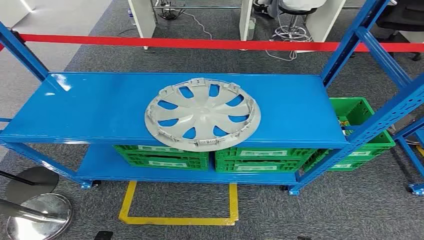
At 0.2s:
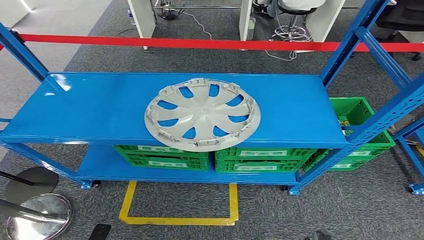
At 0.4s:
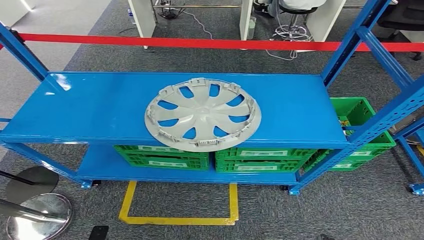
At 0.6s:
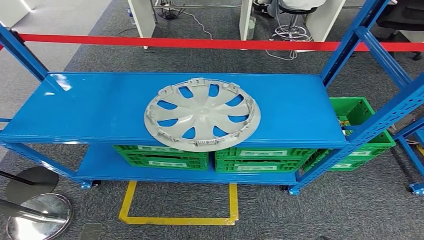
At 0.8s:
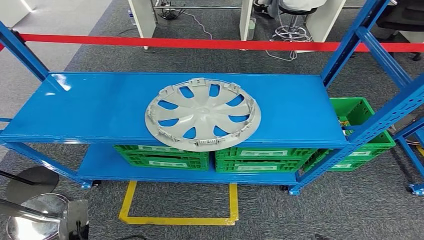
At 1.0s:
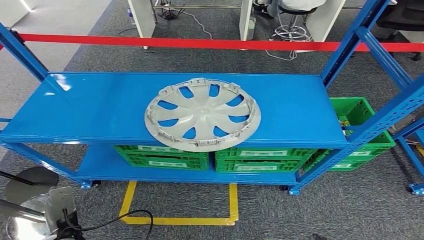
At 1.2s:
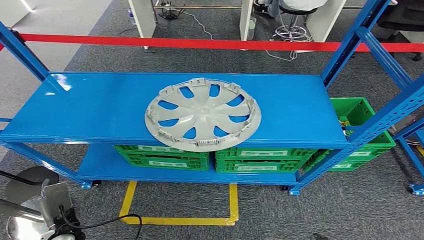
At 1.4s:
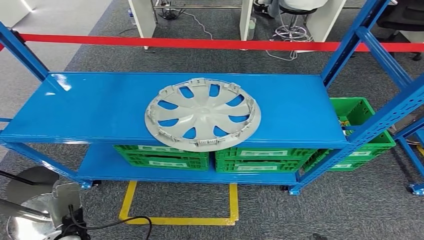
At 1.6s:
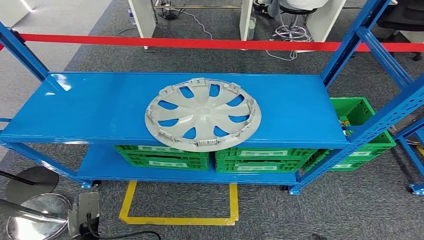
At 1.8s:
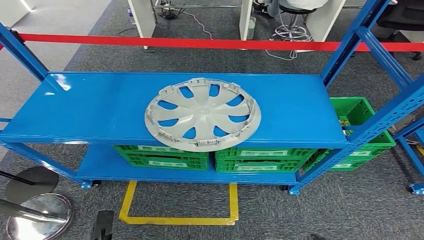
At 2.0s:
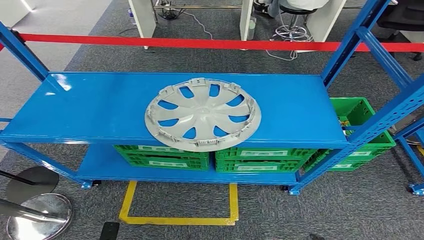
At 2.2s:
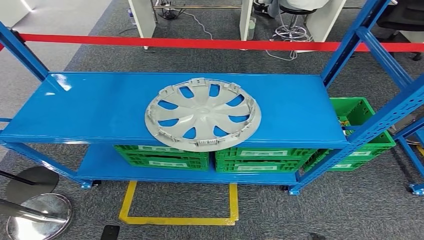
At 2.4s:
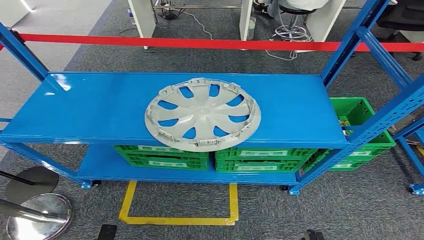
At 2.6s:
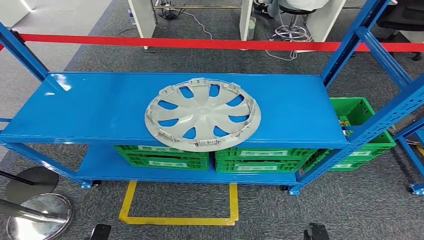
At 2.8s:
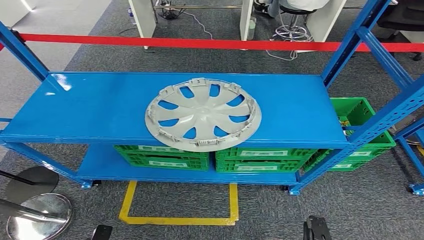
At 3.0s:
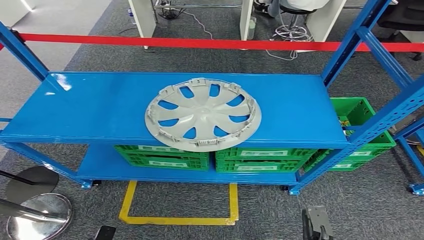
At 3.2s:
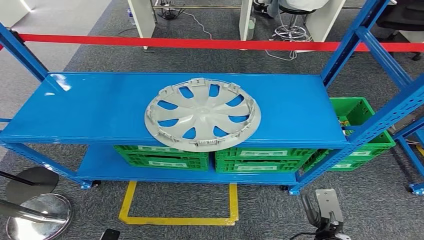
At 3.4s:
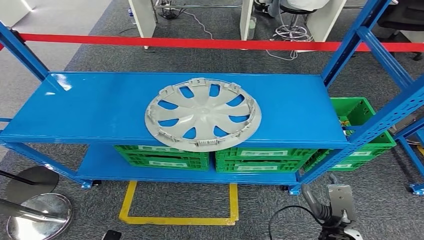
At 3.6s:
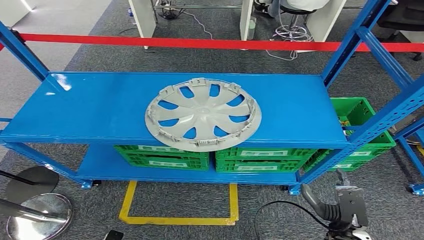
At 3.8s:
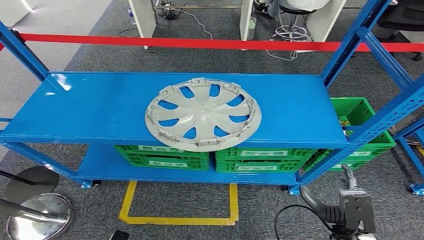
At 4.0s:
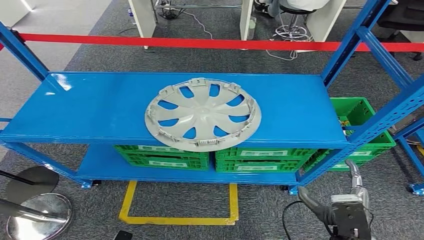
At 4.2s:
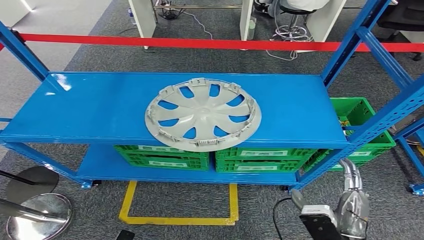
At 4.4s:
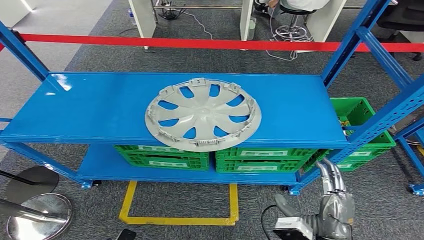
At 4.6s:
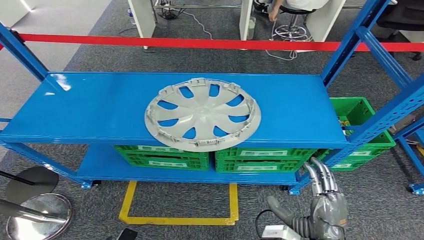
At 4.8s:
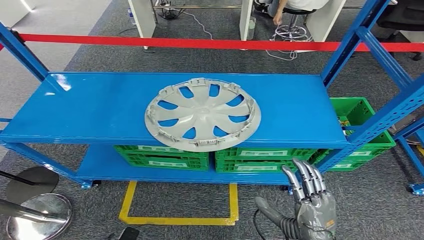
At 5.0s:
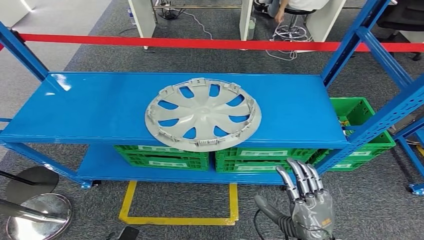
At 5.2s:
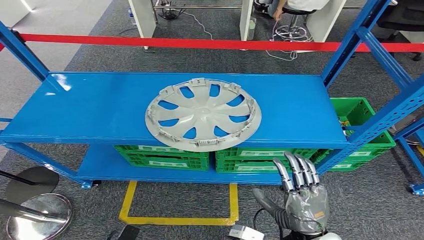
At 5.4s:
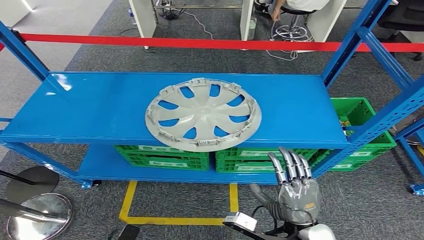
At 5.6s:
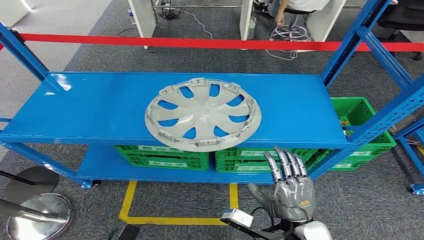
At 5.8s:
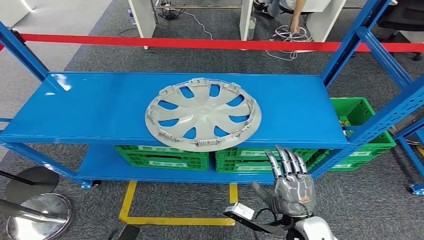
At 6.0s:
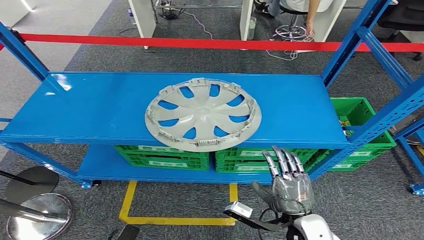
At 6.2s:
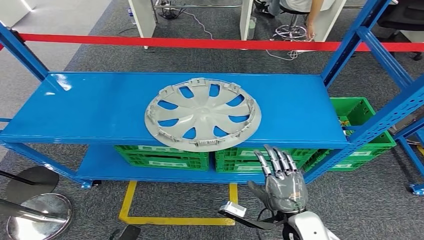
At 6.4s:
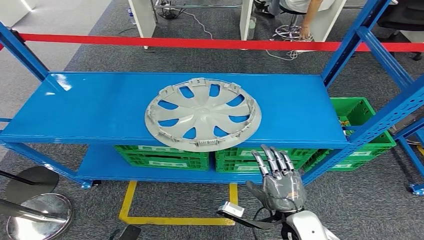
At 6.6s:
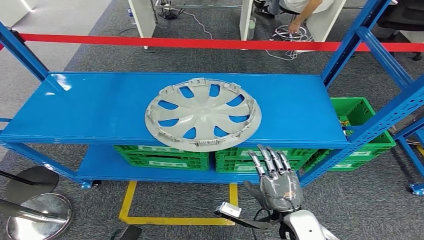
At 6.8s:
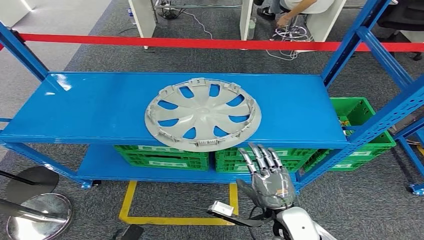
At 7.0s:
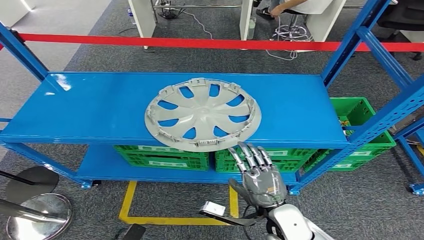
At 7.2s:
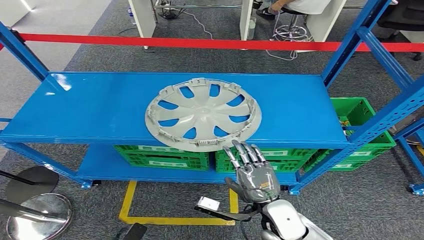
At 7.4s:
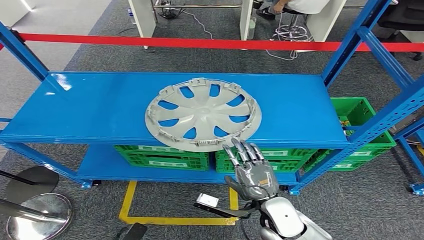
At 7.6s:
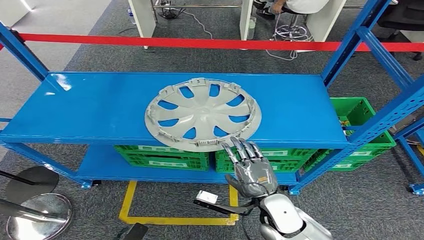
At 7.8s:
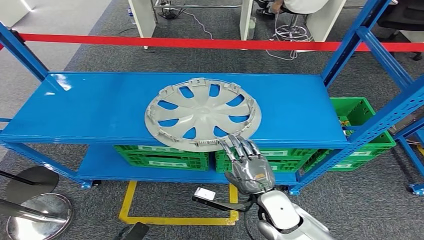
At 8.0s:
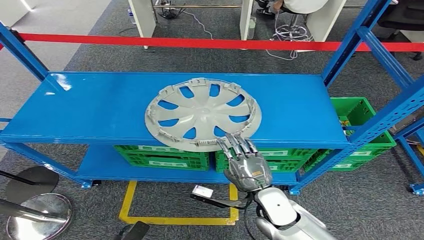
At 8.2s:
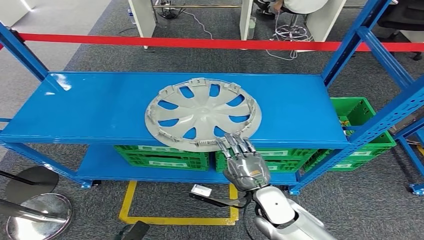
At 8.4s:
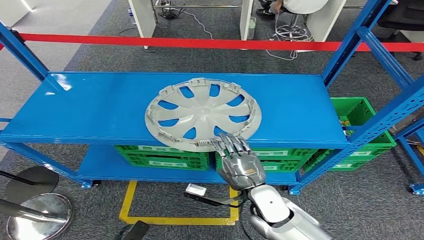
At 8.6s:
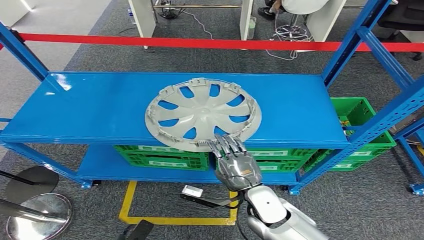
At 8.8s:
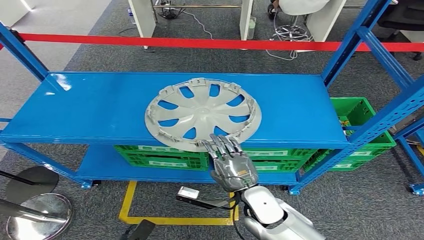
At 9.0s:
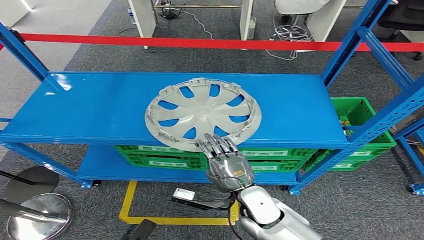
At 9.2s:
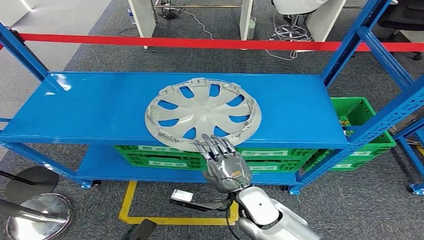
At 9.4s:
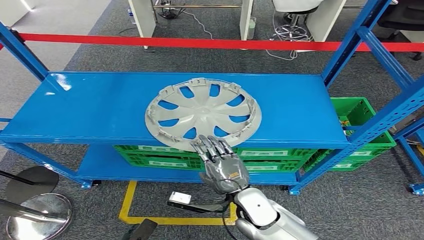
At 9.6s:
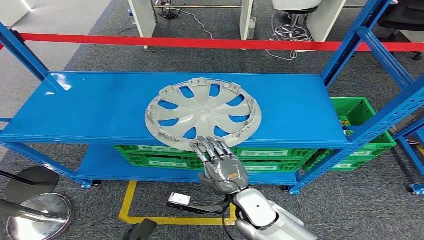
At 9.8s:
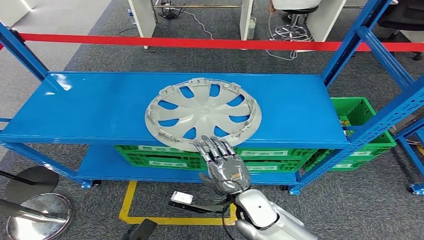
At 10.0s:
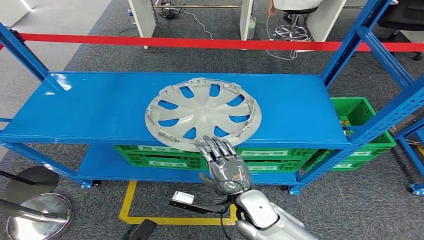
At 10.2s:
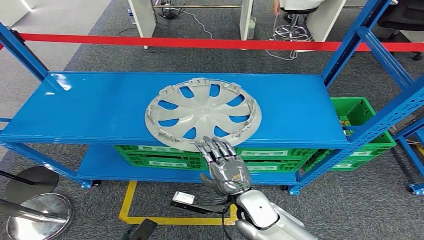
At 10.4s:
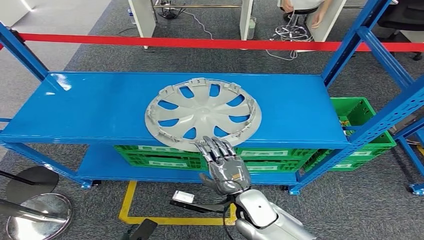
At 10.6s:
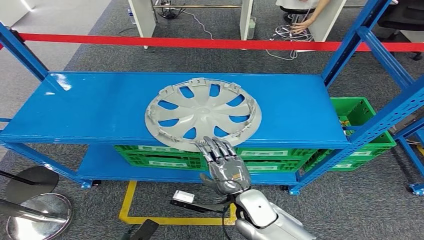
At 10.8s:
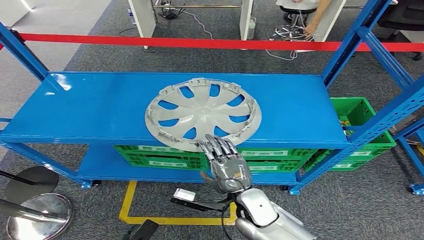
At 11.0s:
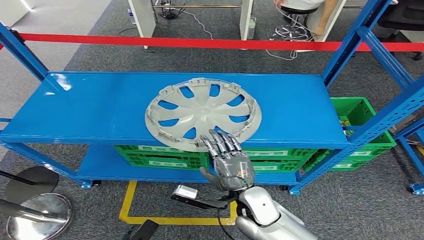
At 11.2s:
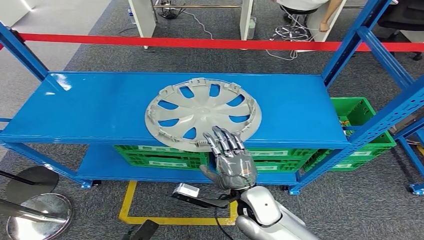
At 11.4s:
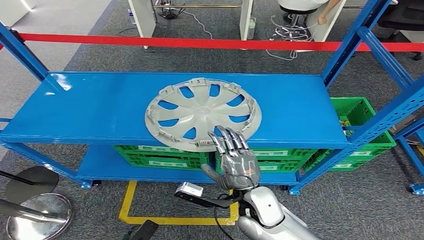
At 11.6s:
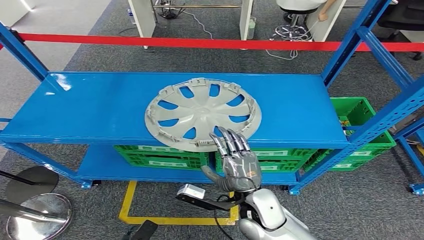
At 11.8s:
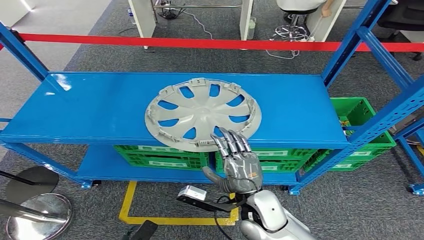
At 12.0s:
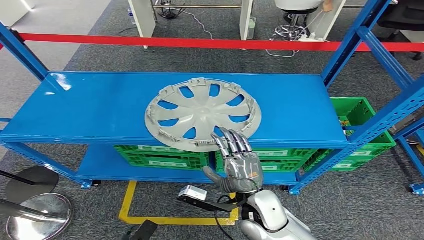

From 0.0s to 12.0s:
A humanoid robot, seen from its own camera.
From 1.6s to 3.0s: The right hand shifts about 5 cm forward, while the left hand is displaced backward by about 10 cm.
From 3.0s to 4.4s: The right hand goes approximately 20 cm upward.
From 4.4s to 6.0s: The right hand moves forward, about 5 cm.
From 6.0s to 7.6s: The right hand goes approximately 5 cm forward.
From 7.6s to 12.0s: The hands make only small movements.

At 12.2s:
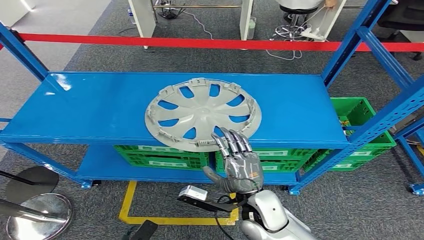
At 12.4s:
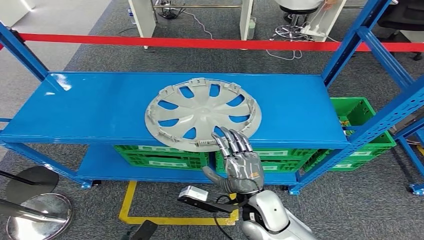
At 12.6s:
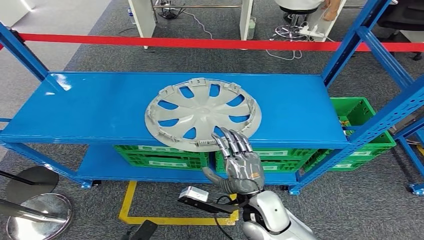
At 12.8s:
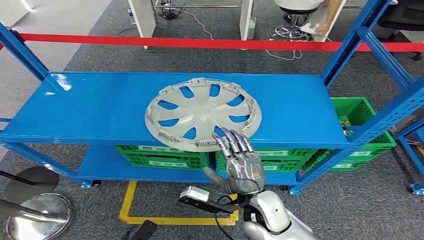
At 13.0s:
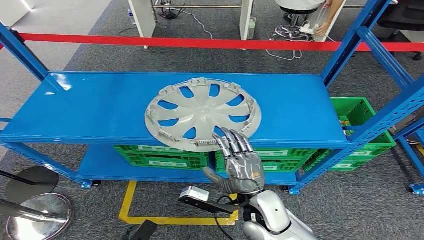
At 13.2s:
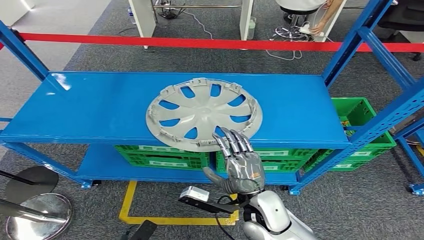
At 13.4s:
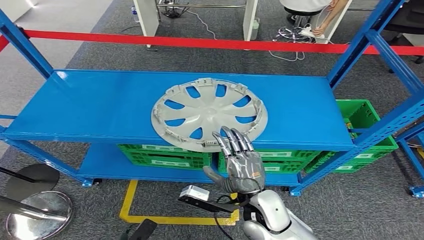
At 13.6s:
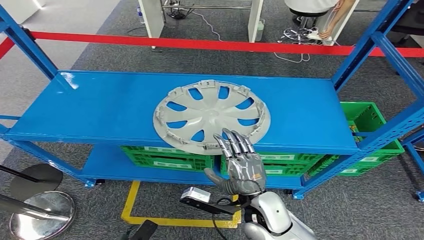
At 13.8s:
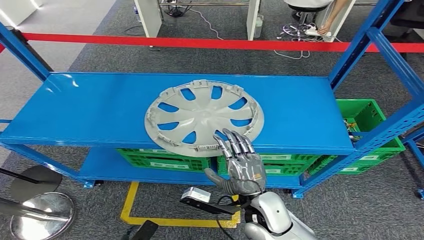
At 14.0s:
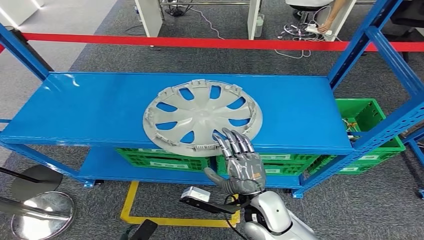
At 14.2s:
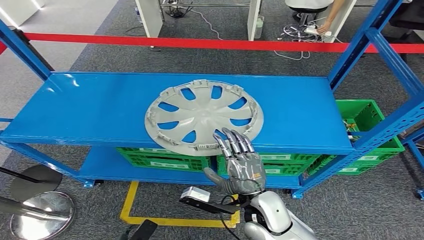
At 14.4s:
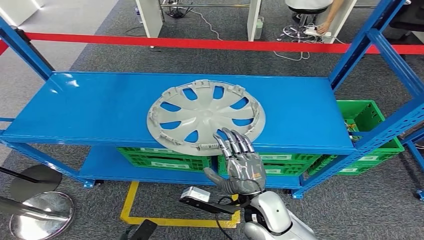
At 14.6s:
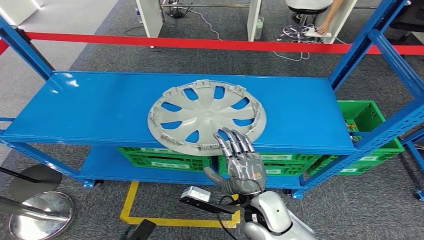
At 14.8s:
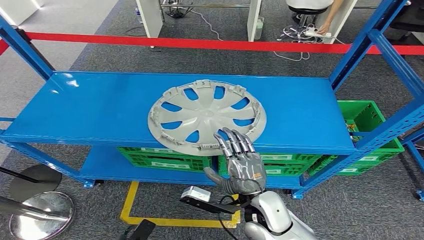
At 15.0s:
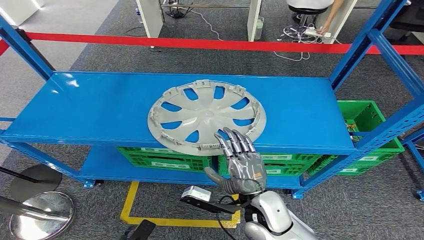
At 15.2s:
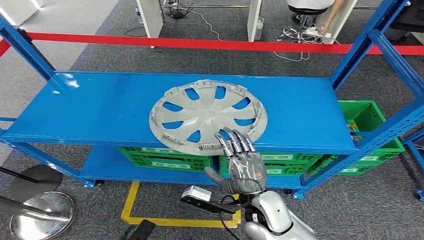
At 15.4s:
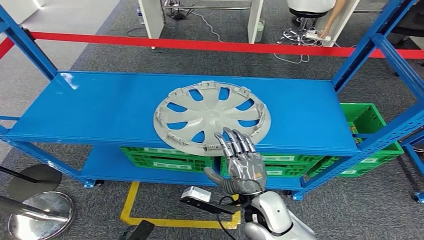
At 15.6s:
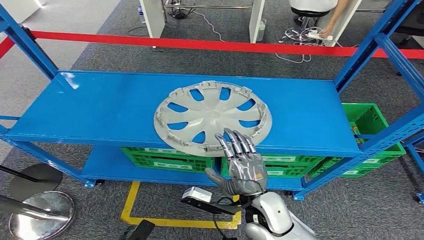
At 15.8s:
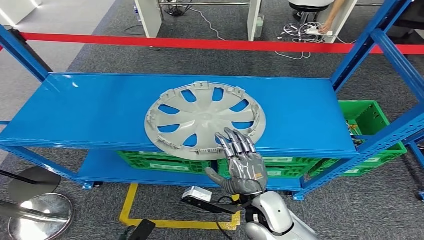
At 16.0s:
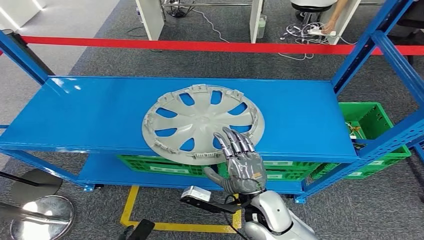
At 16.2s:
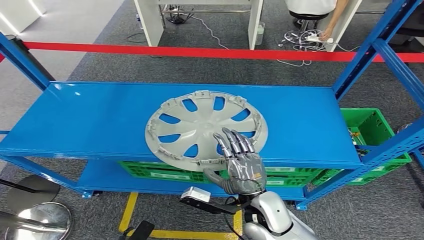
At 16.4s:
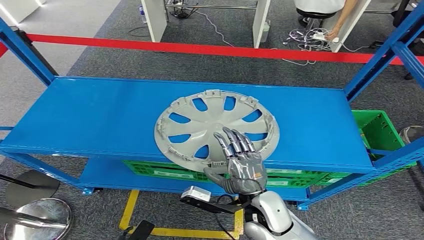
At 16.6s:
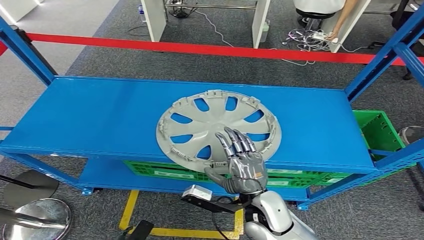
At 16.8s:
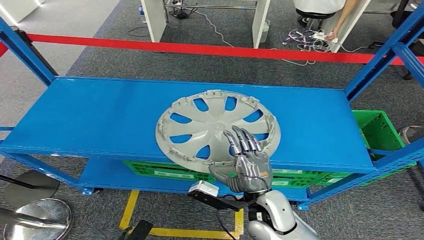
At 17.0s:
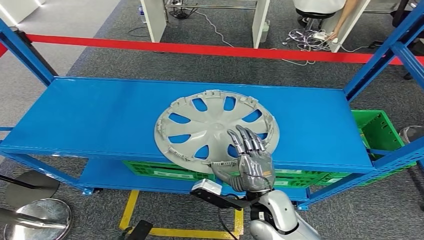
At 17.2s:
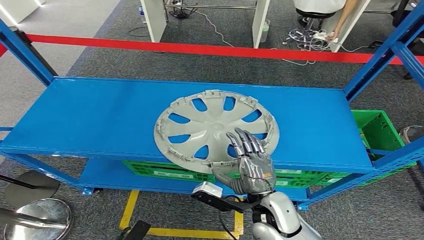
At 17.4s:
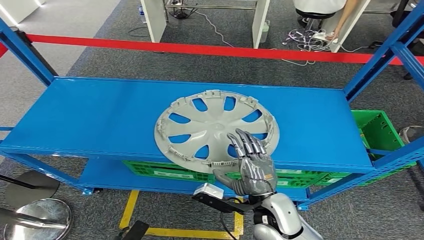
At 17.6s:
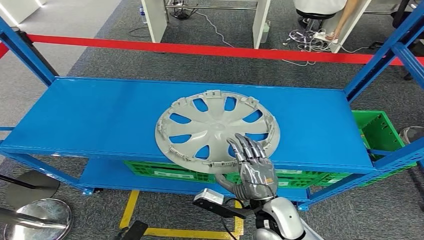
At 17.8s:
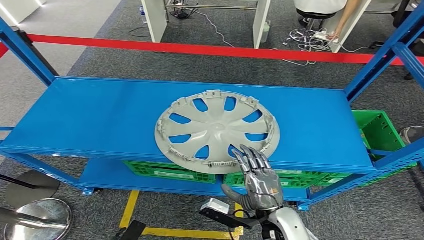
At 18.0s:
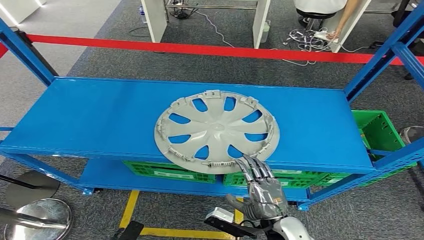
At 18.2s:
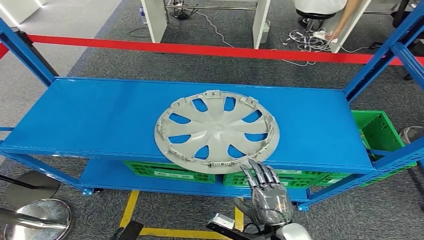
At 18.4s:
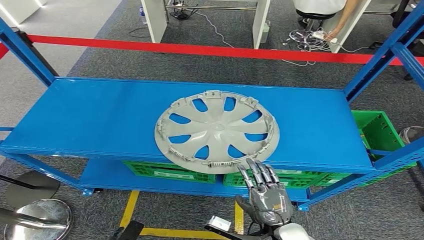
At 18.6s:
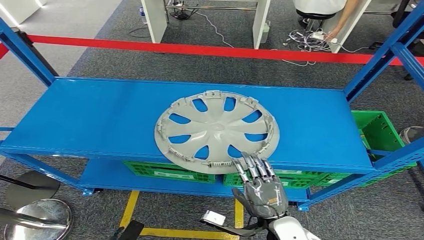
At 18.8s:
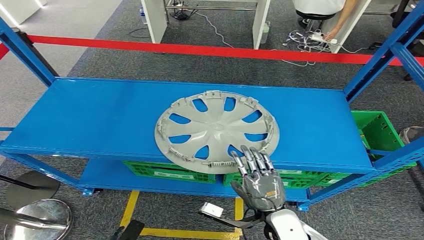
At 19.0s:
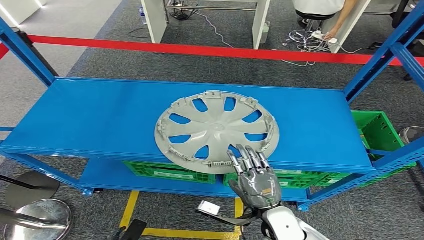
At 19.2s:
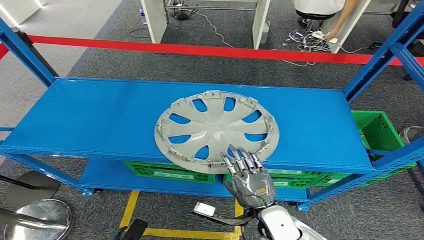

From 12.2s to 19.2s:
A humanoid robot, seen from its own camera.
From 13.6s to 15.0s: Both hands stay about where they are.
From 16.4s to 17.8s: The right hand moves about 5 cm.
